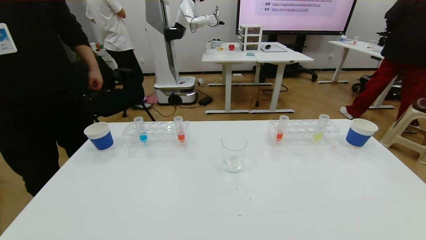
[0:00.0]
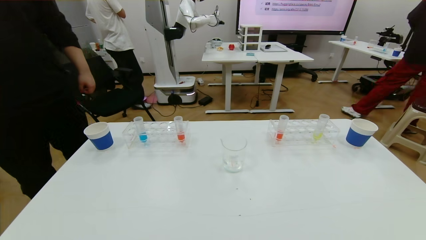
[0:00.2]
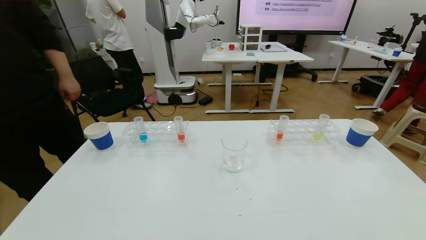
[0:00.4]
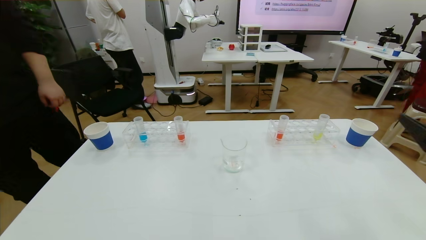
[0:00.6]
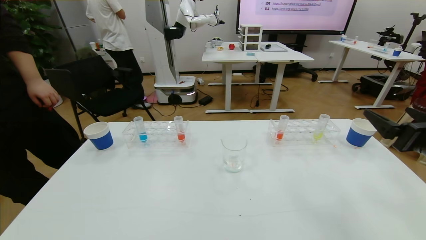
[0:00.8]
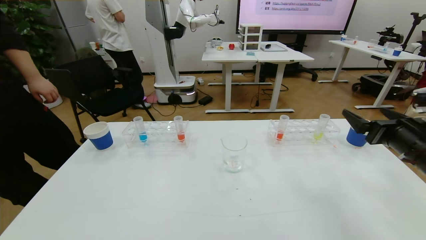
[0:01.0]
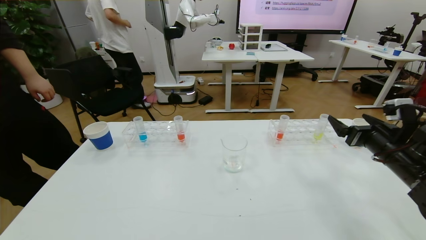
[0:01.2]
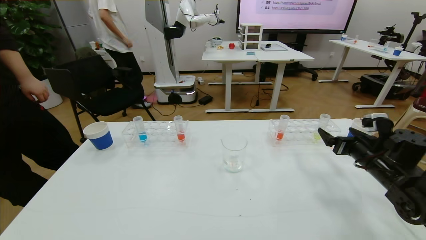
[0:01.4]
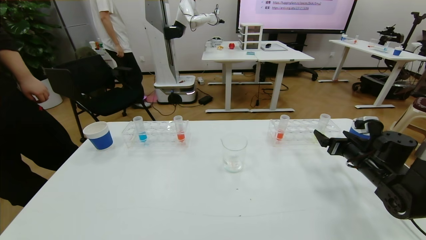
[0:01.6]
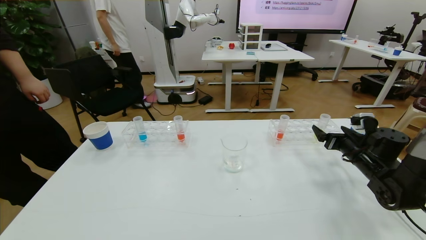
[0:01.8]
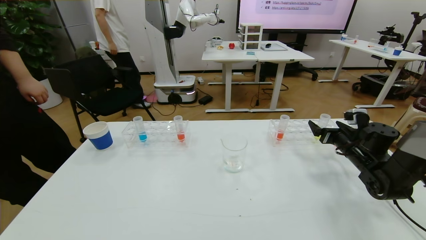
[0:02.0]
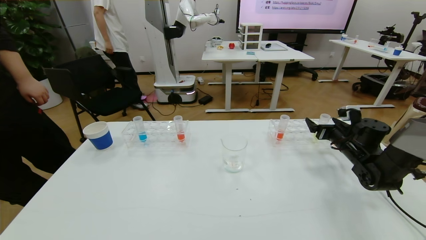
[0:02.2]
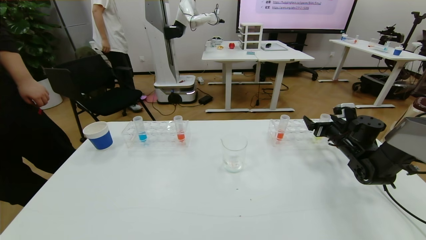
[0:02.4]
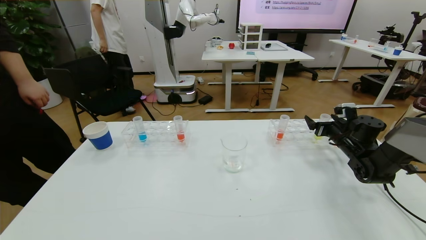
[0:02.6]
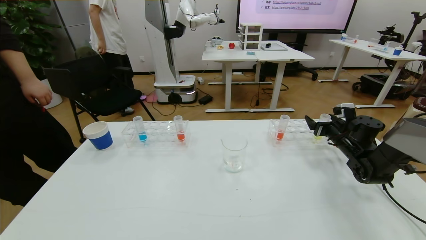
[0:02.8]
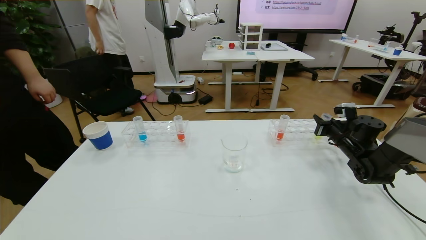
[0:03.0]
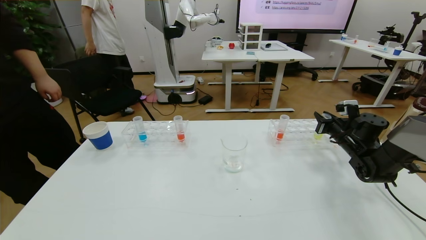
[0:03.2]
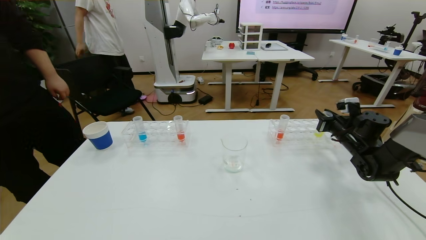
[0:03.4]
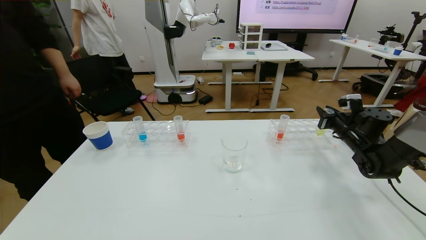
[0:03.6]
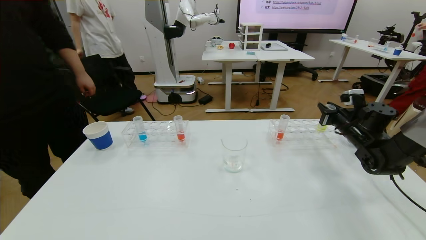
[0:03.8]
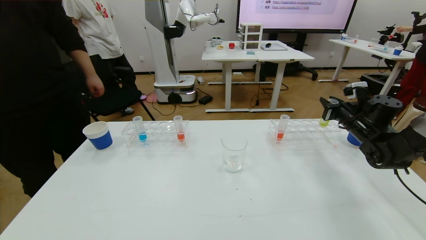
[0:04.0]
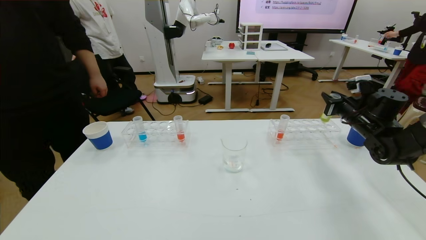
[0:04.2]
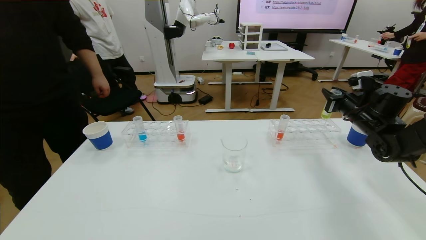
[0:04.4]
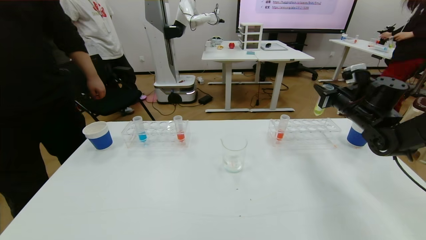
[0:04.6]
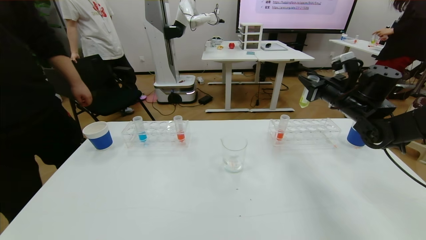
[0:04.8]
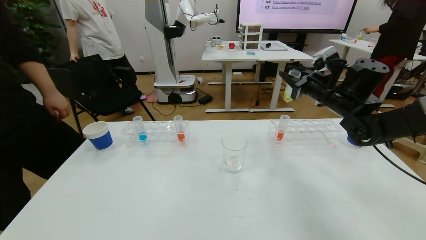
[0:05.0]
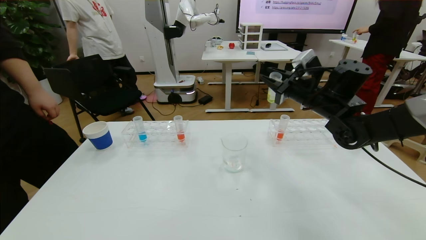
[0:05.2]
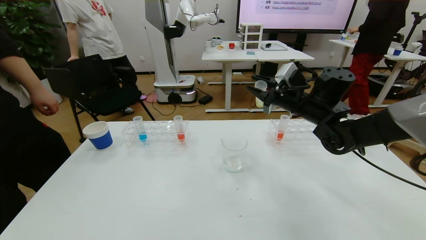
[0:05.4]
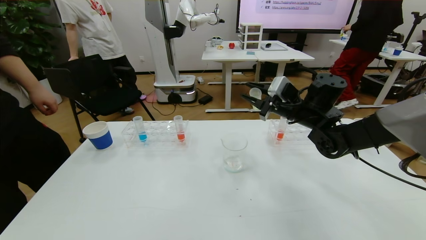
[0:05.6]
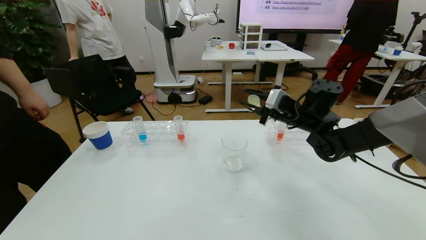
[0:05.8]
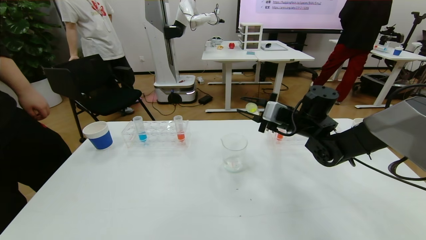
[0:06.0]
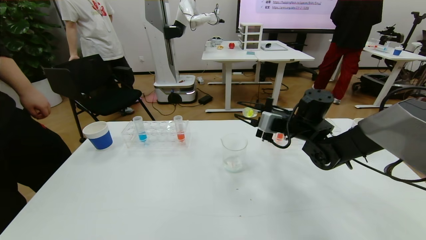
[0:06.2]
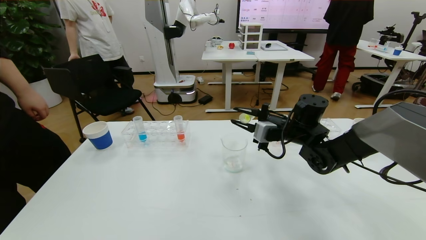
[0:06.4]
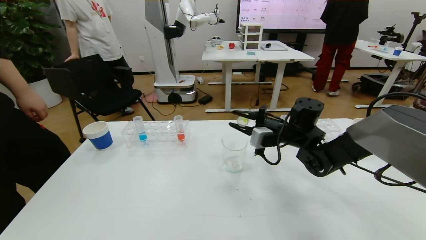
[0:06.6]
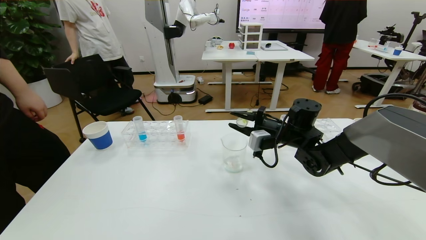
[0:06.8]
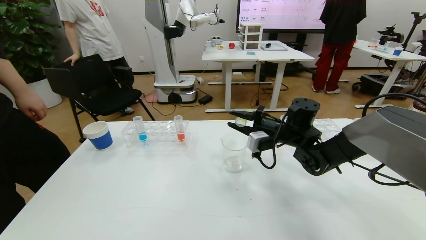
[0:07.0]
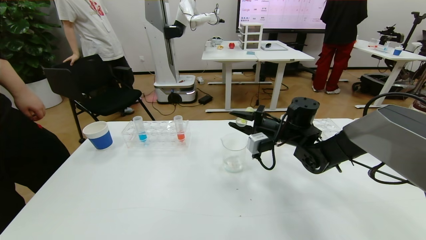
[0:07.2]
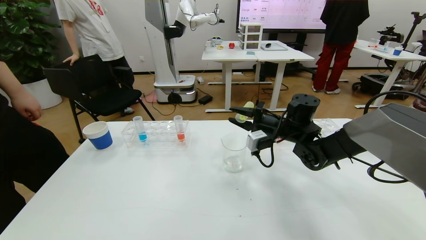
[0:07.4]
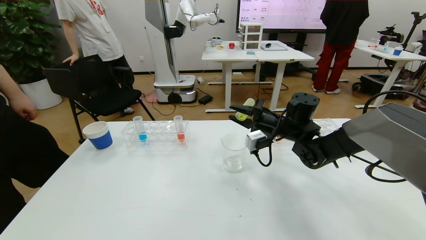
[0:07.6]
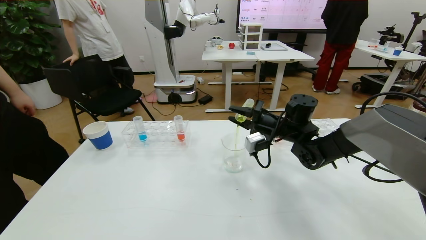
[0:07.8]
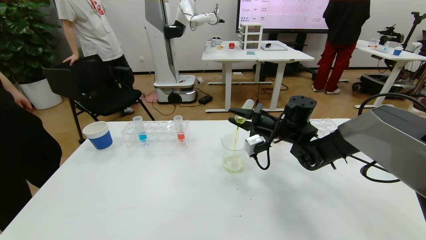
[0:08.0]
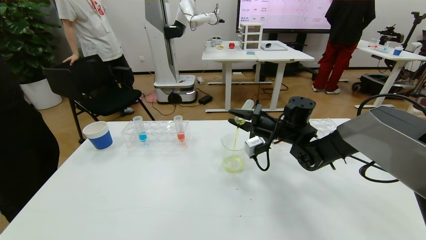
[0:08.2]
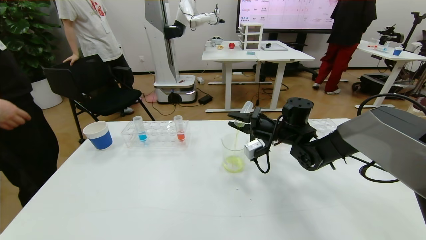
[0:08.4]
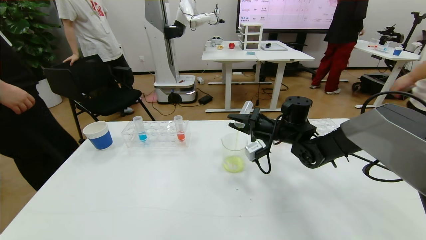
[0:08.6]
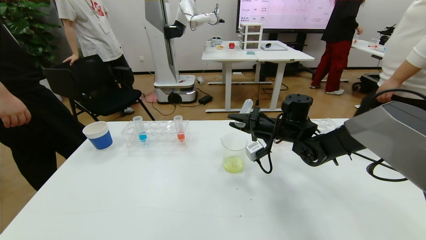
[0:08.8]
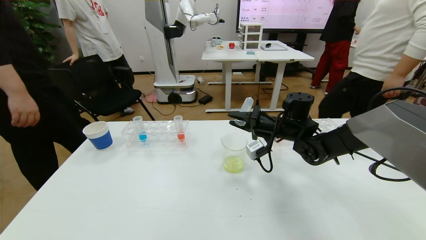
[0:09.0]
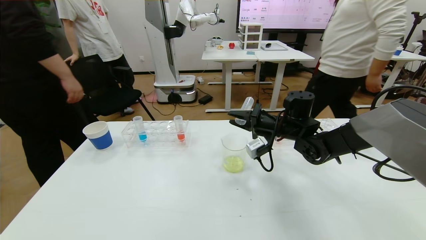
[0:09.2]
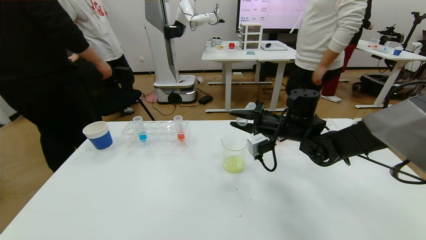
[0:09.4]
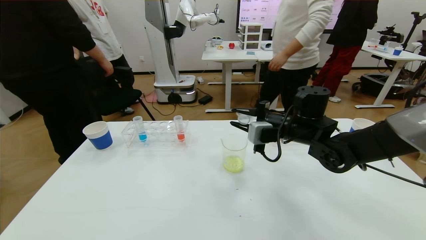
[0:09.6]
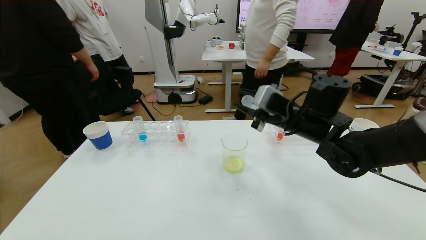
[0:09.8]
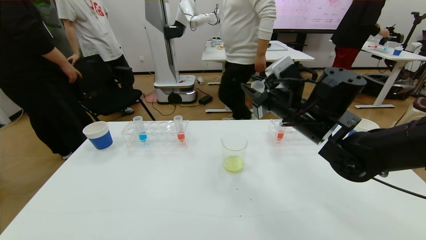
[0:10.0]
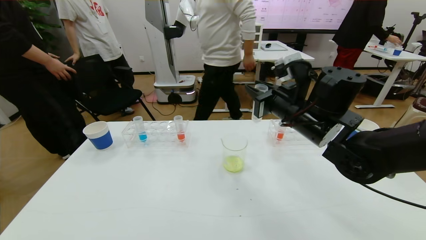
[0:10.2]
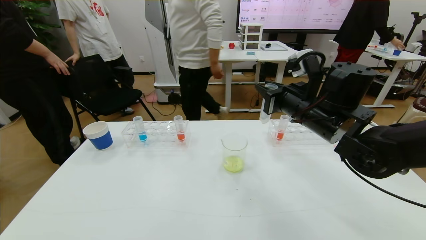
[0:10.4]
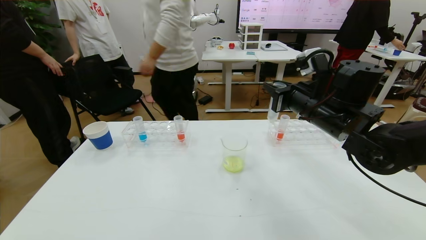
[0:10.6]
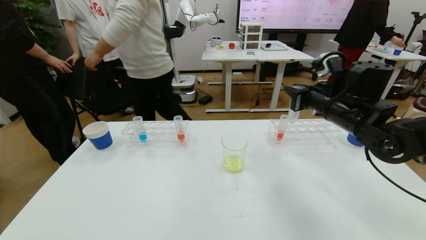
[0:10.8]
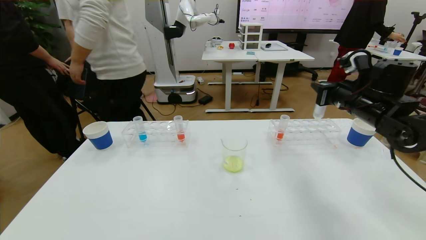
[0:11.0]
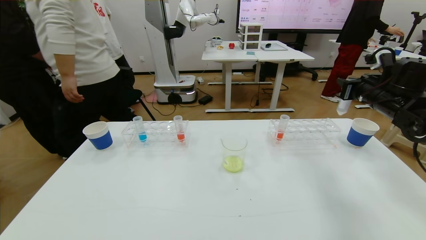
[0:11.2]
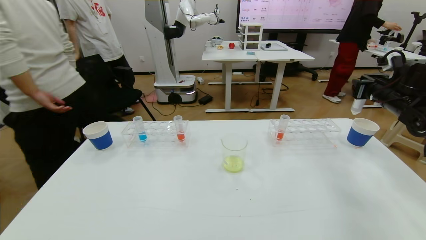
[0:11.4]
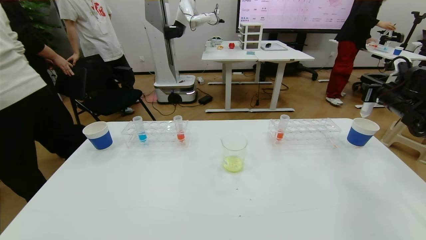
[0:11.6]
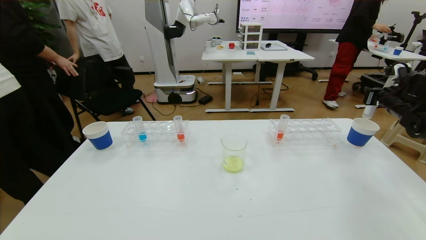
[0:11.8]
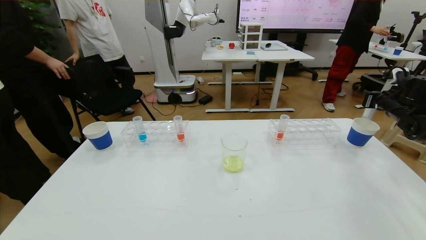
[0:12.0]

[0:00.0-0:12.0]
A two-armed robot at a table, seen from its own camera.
Task of the whole recording: pick up the test tube with yellow pigment and the test tube with blue pigment by grippers and pour them into the beaker.
0:00.0 to 0:01.6: The right gripper heads forward, covering roughly 35 cm.
0:01.6 to 0:03.0: The right gripper moves forward, roughly 10 cm, and closes up.
0:03.0 to 0:04.4: The right gripper heads upward, covering approximately 10 cm.
0:04.4 to 0:06.0: The right gripper moves to the left, approximately 20 cm.
0:07.6 to 0:09.0: The grippers stay close to where they were, moving slightly.
0:09.0 to 0:10.4: The right gripper goes about 15 cm upward and backward.
0:10.4 to 0:12.0: The right gripper moves to the right, approximately 30 cm.

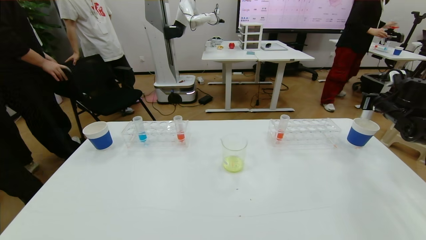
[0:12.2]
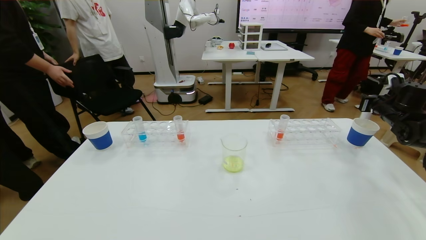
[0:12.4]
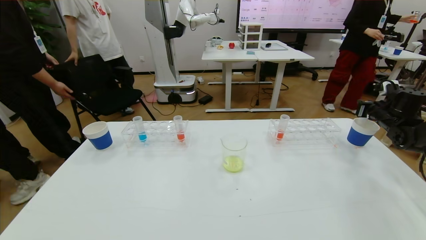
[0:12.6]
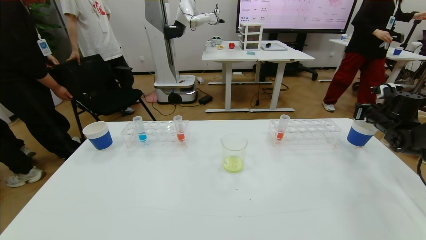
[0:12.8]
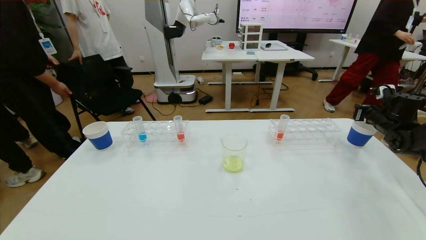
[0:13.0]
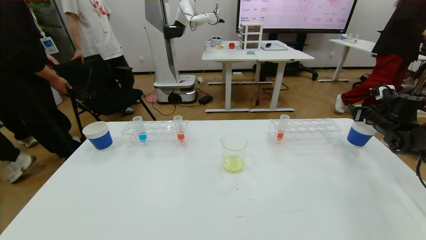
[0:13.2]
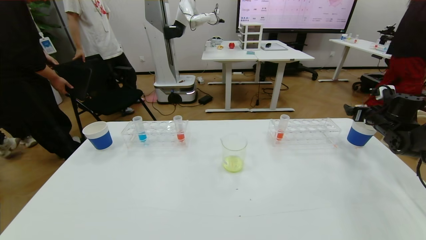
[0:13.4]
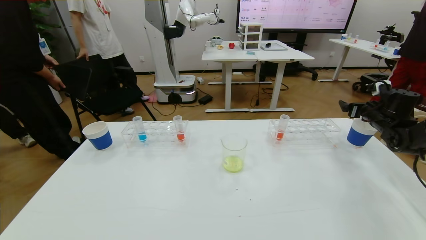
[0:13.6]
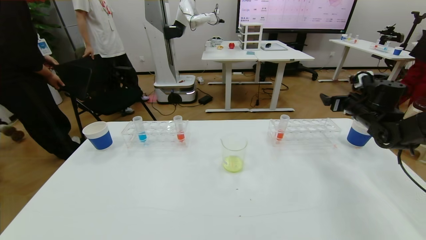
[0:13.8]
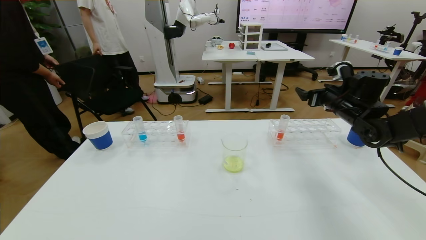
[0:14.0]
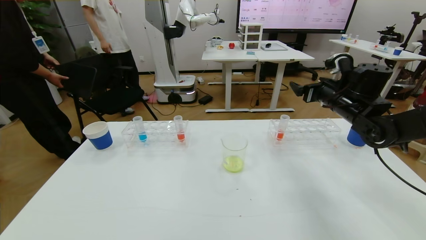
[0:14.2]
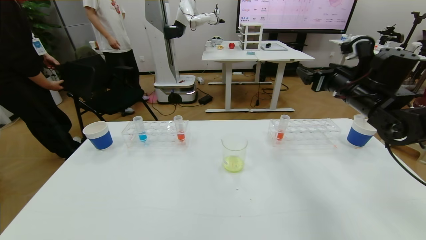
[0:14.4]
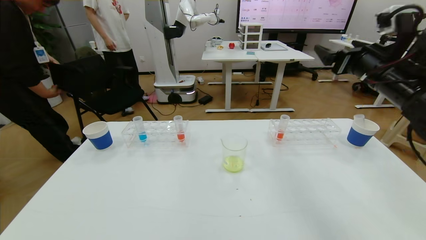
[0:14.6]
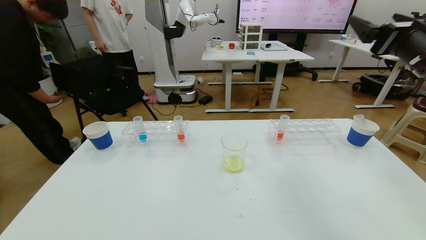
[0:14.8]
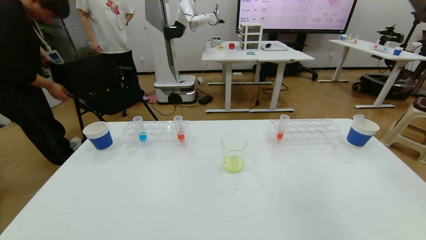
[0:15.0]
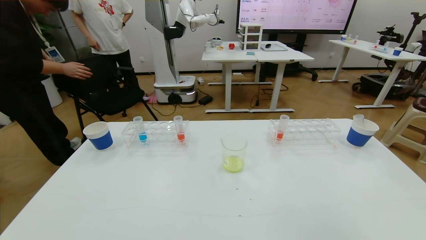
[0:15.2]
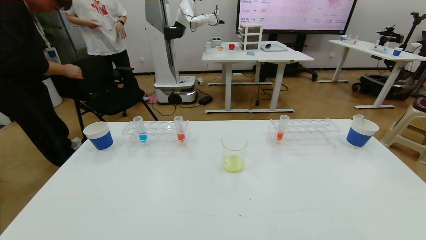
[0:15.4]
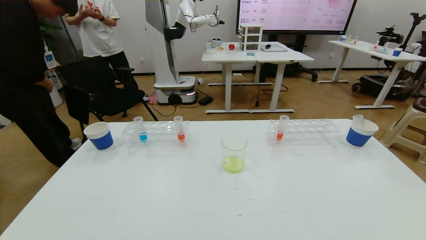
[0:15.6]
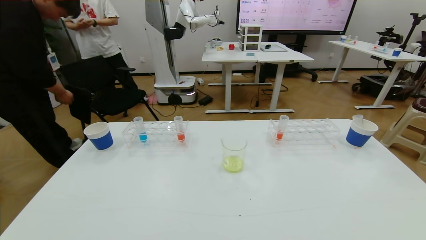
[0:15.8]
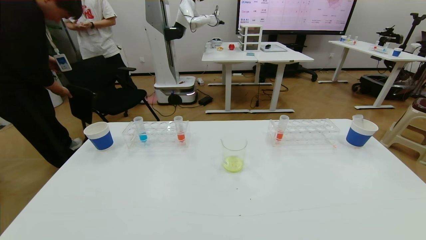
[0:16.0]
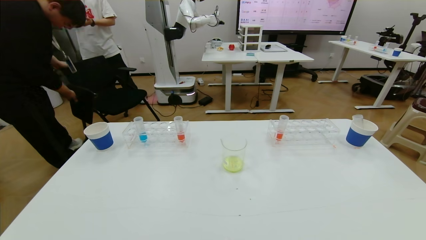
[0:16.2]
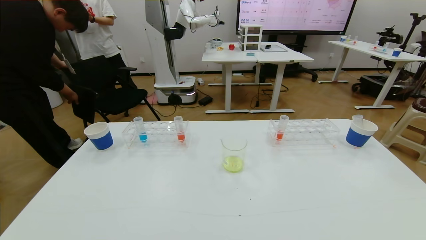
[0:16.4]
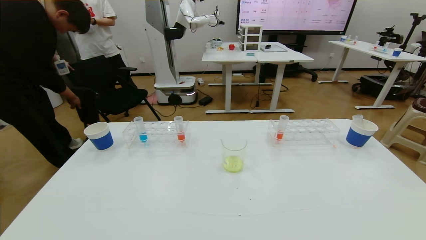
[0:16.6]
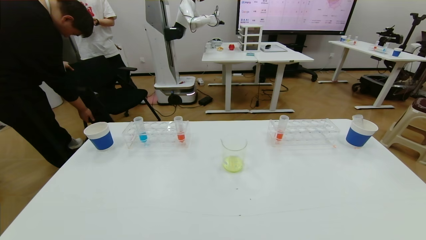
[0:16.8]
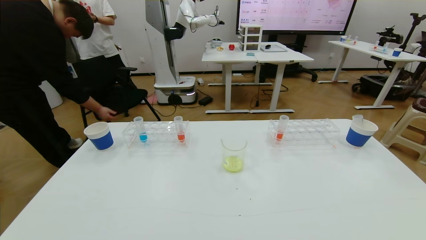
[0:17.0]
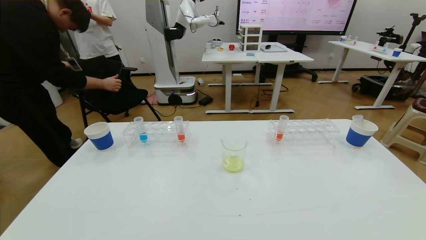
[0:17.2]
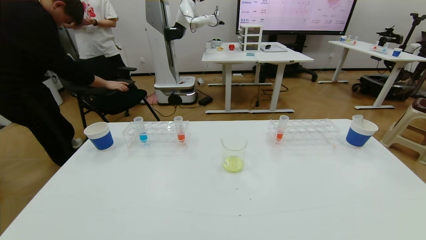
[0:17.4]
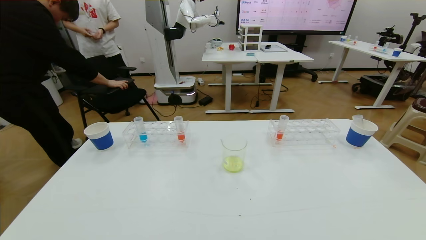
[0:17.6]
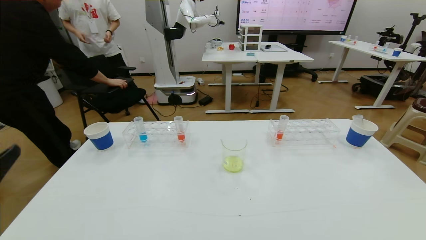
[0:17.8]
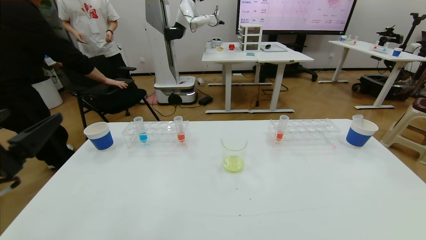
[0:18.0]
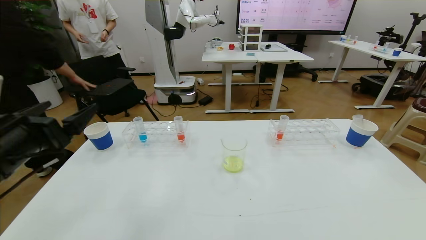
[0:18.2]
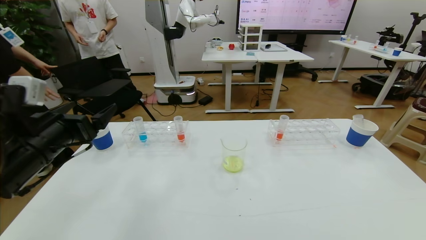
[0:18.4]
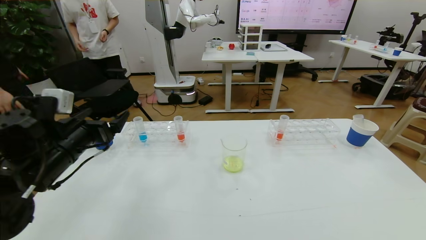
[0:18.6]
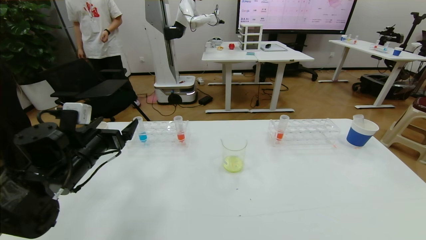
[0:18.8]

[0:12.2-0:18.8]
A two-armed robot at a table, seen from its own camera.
Task of the whole recording: pick up the test tube with yellow pigment and the test tube with blue pigment by grippers and pour them into the beaker.
Step, 0:12.2 to 0:15.6: Pour the yellow reagent into the graduated cylinder and place the test tube into the paper cup.
0:12.2 to 0:13.8: The right gripper travels to the left by about 10 cm, and opens up.
0:13.8 to 0:15.4: The right gripper is displaced backward and upward by roughly 40 cm.
0:15.4 to 0:17.2: The right gripper goes about 30 cm downward.
0:17.2 to 0:18.8: The left gripper shifts about 30 cm forward.
